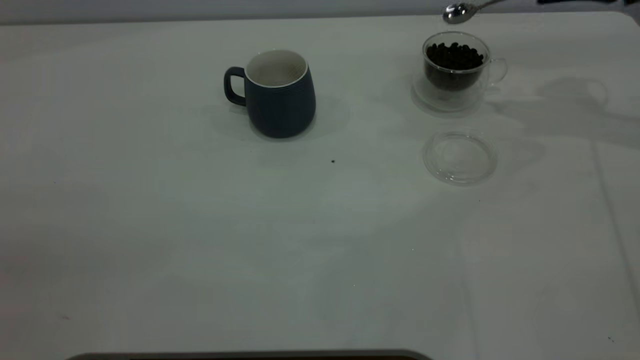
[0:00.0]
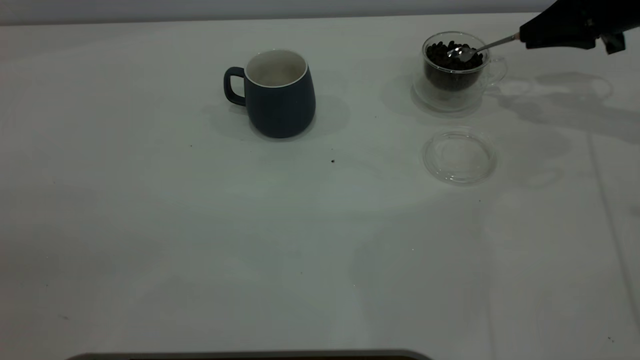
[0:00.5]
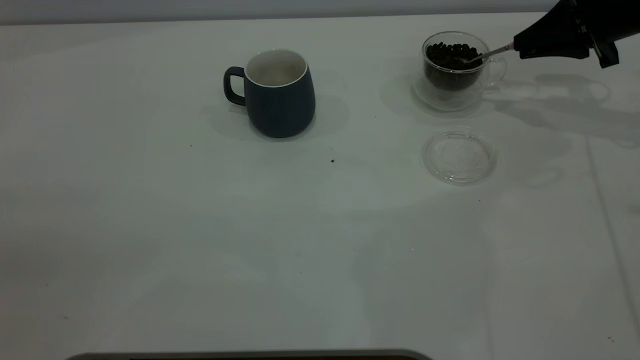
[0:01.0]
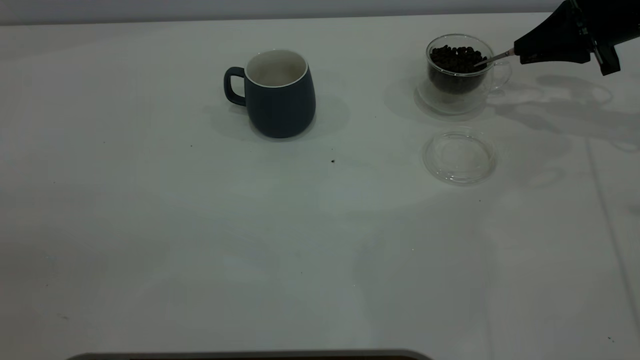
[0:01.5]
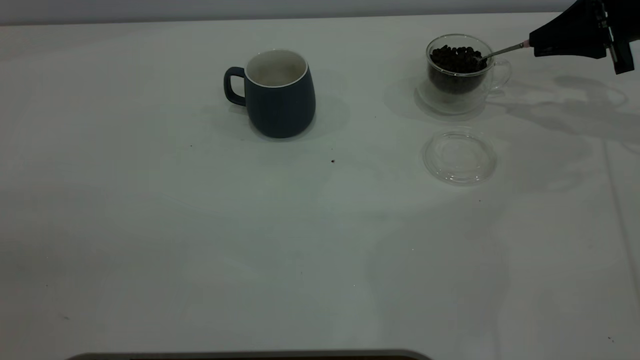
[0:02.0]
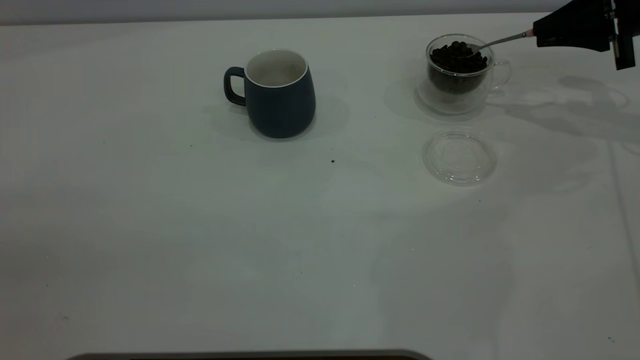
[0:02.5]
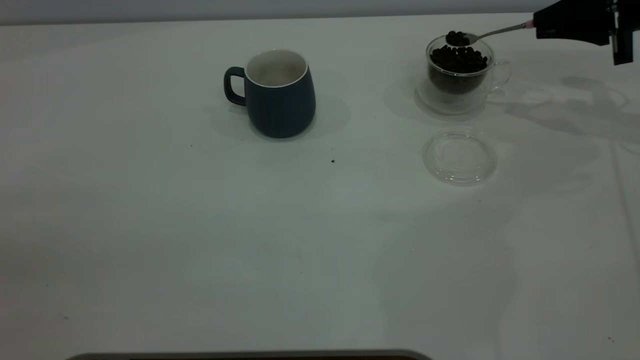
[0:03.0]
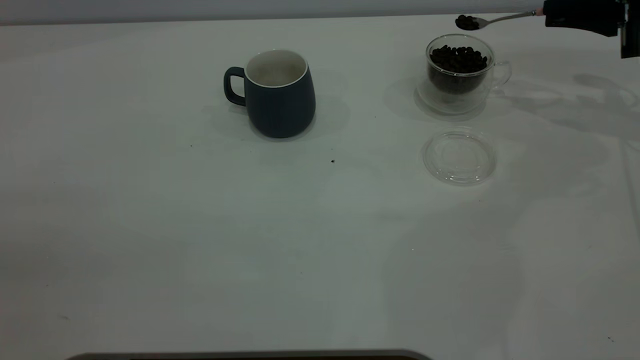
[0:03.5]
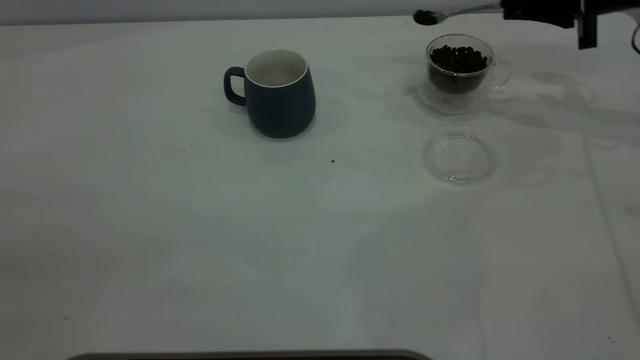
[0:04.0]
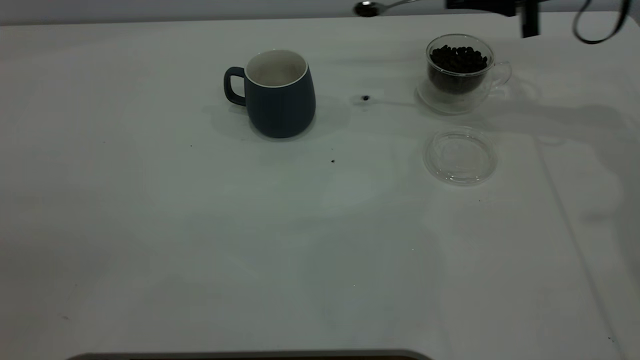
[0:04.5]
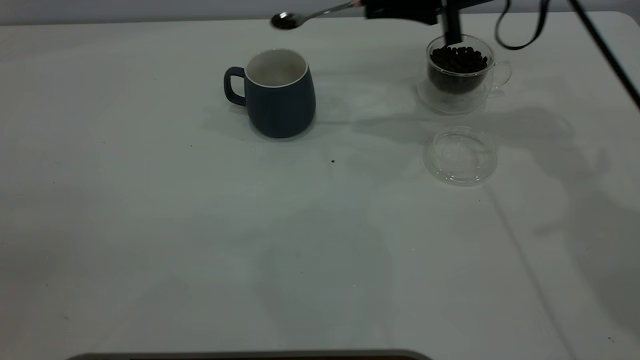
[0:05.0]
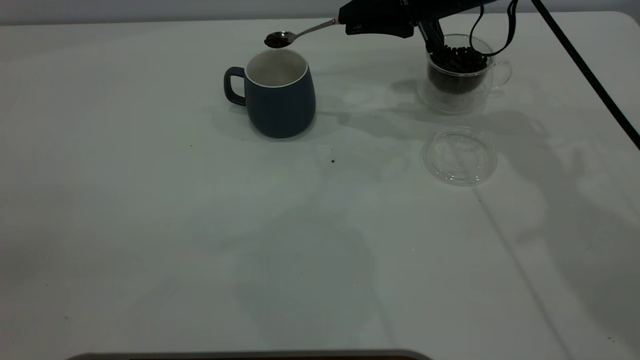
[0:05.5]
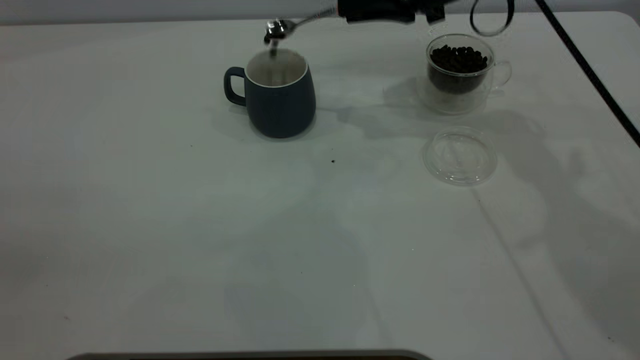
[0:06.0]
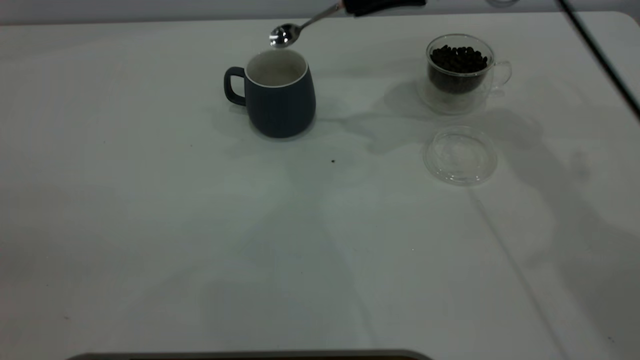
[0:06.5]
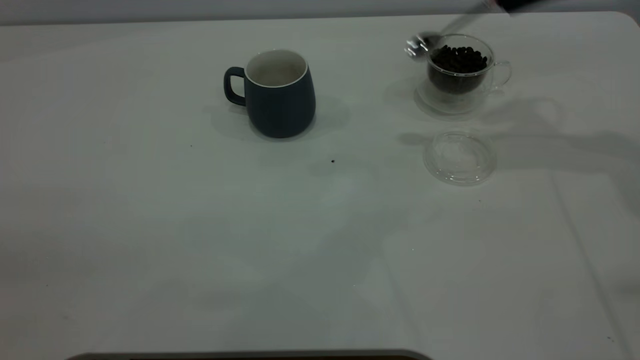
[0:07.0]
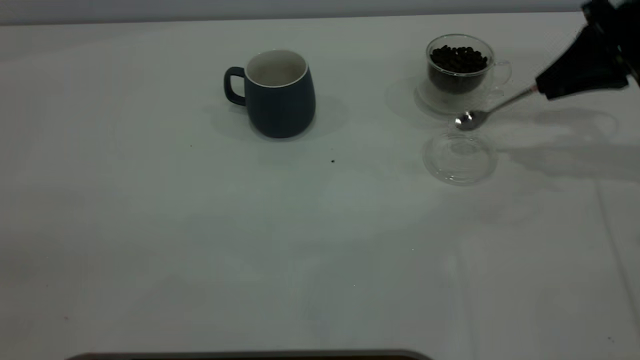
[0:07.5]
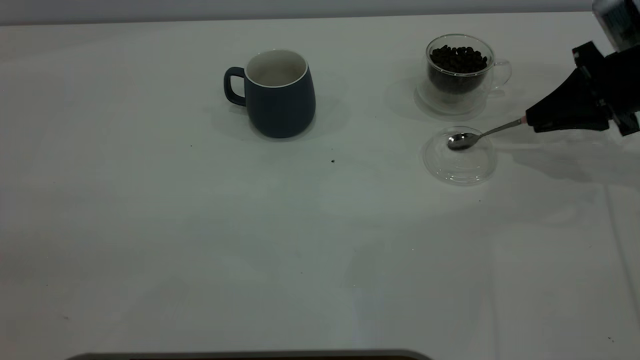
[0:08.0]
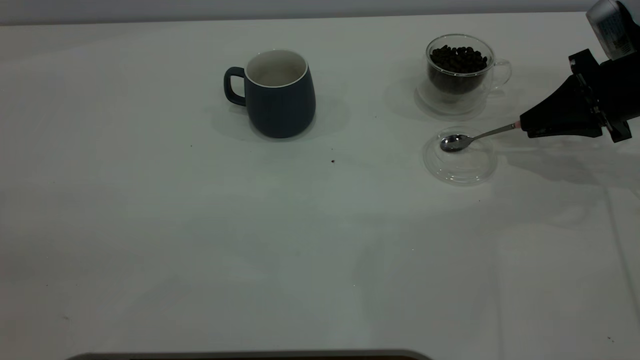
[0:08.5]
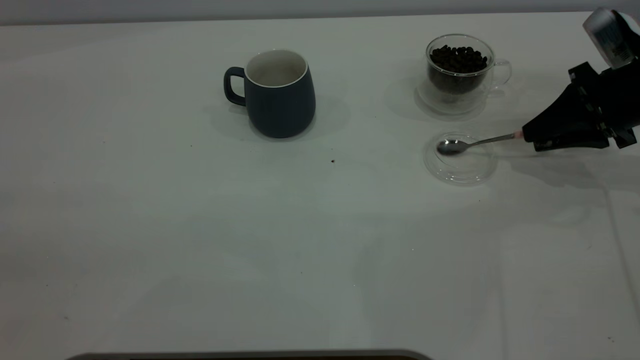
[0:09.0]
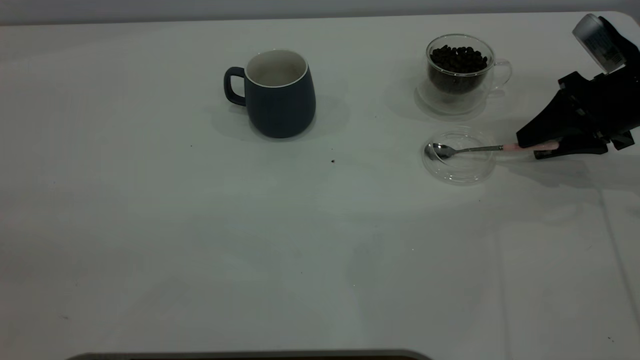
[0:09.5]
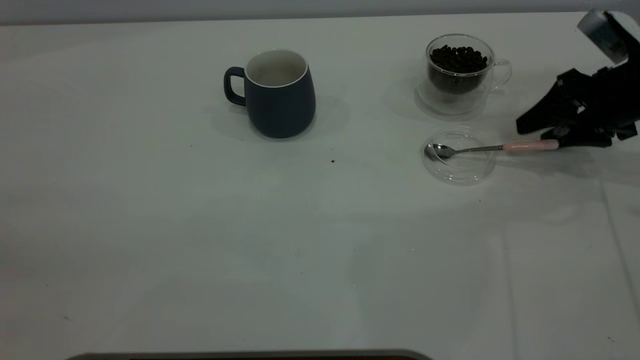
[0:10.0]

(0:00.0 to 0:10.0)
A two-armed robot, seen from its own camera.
Task of the whole recording: the left gripper place the grey cup in the center of the table, the right gripper take the pink spoon from the cup lid and scoop out the coffee beans from the coffee cup and put them into the grey cup, the right gripper put the spoon back into the cup lid.
Step, 0:00.0 - 0:06.0: Scoop a spoonful of beans into the cup.
Step, 0:06.5 - 0:10.0: Place the spoon back in its original place.
0:00.0 - 0:02.0: The right gripper shifts by roughly 5 cm.
0:02.0 - 0:04.0: The grippers make only small movements.
0:04.0 - 0:06.0: The right gripper goes approximately 20 cm to the left.
0:06.0 - 0:08.0: The right gripper is displaced to the right and downward by about 20 cm.
0:08.0 - 0:10.0: The right gripper opens up.

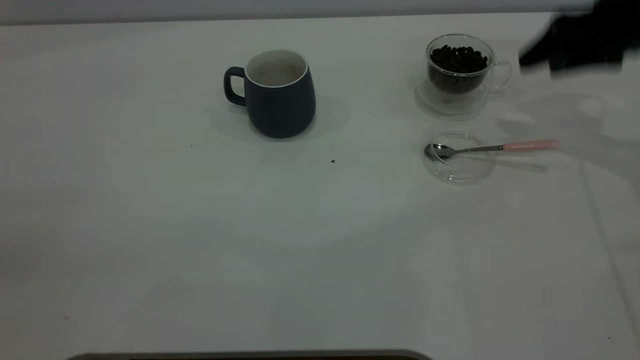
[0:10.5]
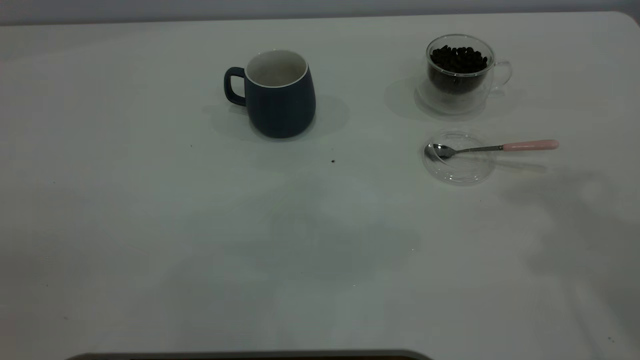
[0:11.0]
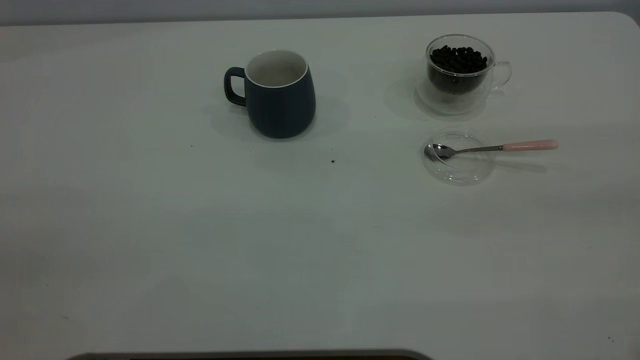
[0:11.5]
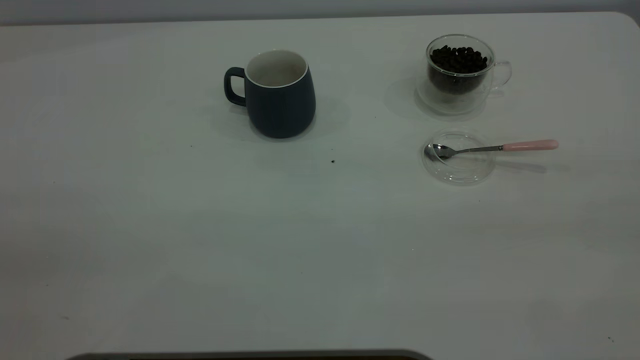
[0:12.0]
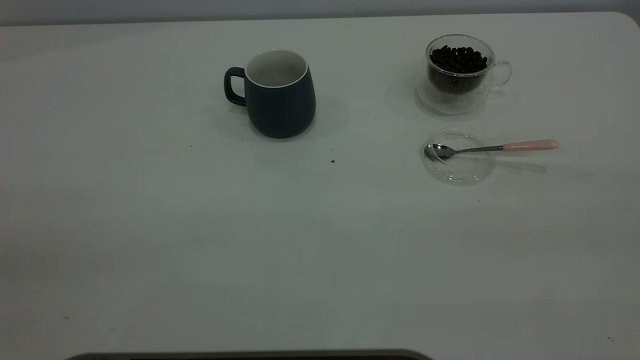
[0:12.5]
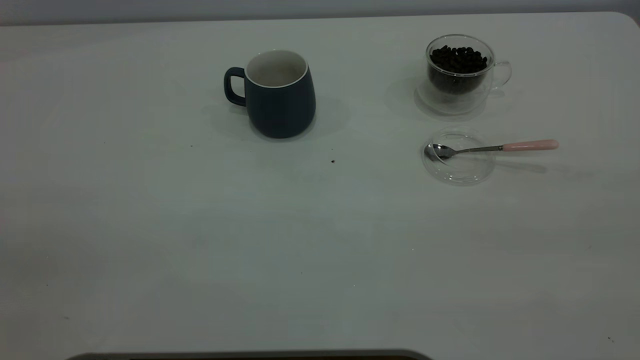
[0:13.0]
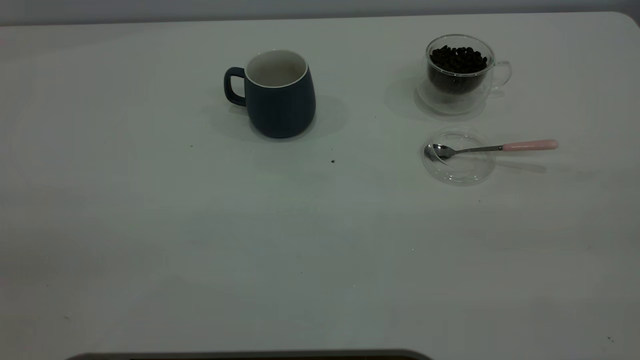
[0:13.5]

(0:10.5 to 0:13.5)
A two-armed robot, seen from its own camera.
Task of the whole recording: the left gripper place the grey cup in the center of the table, the right gripper take the pink spoon from the cup lid and scoop out the coffee beans from the coffee cup and put them into the grey cup, the right gripper put the spoon back into the cup lid.
0:10.5 - 0:12.0: The right gripper is displaced backward and upward by roughly 40 cm.
0:12.0 - 0:13.5: Both grippers stay about where they are.

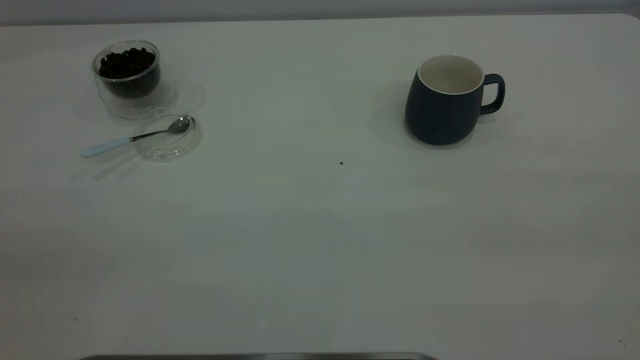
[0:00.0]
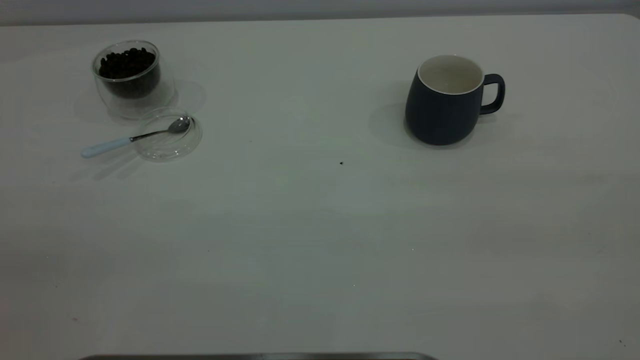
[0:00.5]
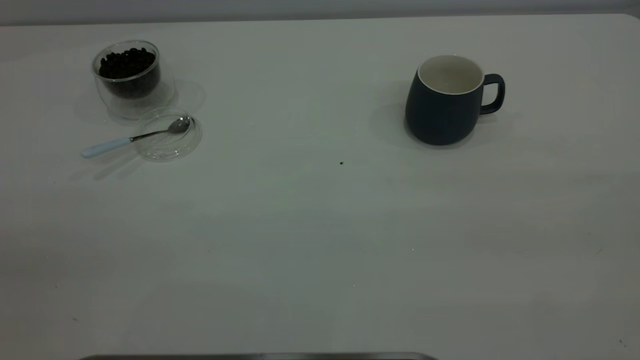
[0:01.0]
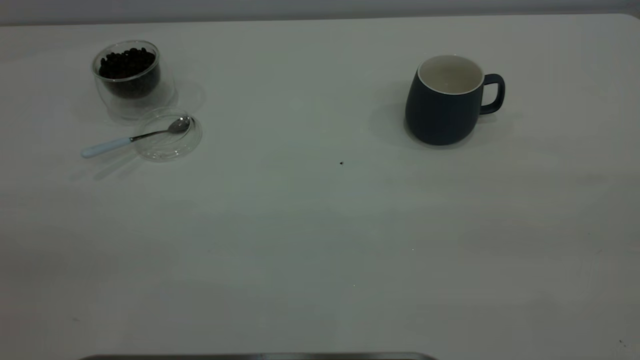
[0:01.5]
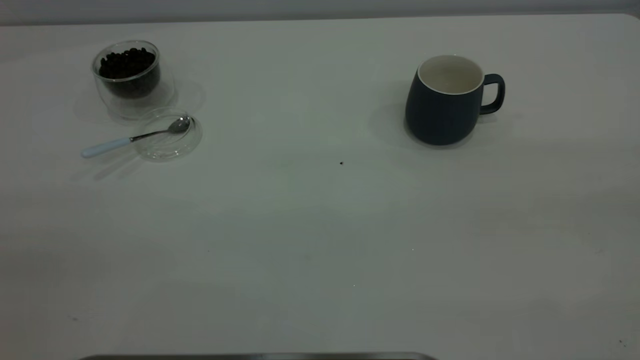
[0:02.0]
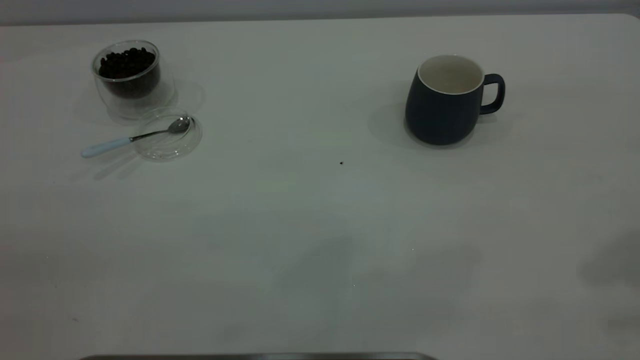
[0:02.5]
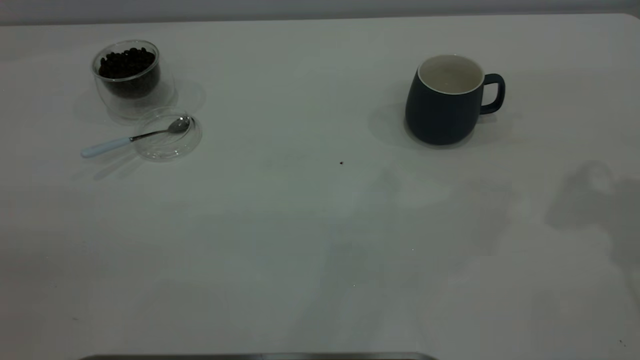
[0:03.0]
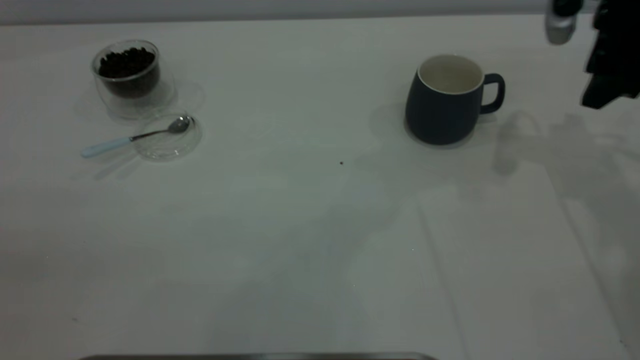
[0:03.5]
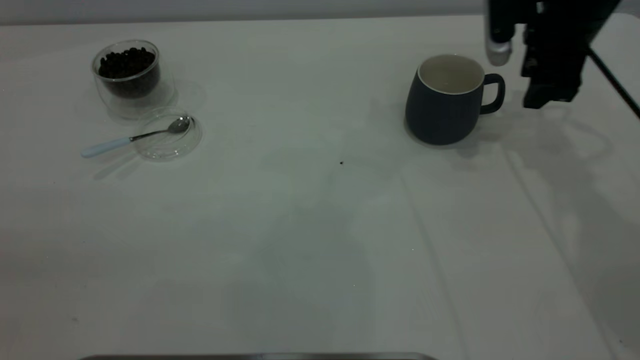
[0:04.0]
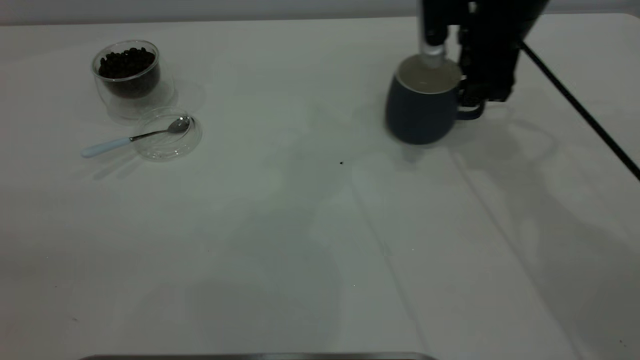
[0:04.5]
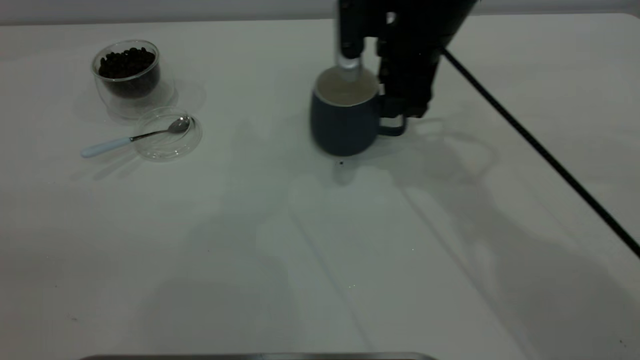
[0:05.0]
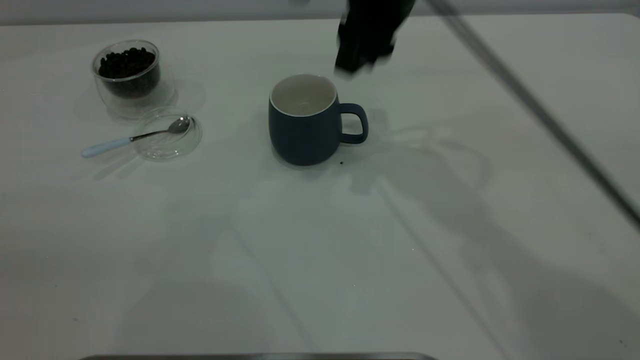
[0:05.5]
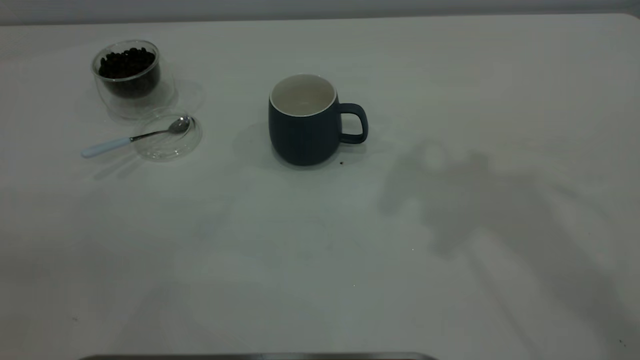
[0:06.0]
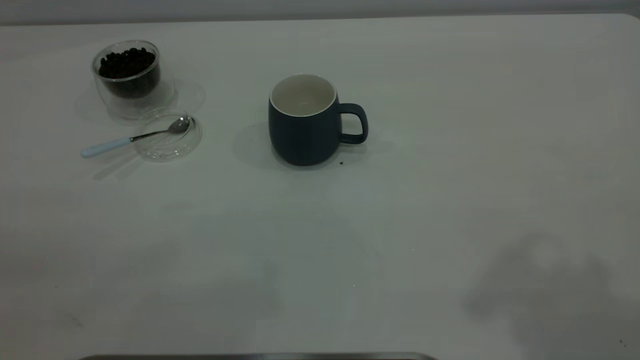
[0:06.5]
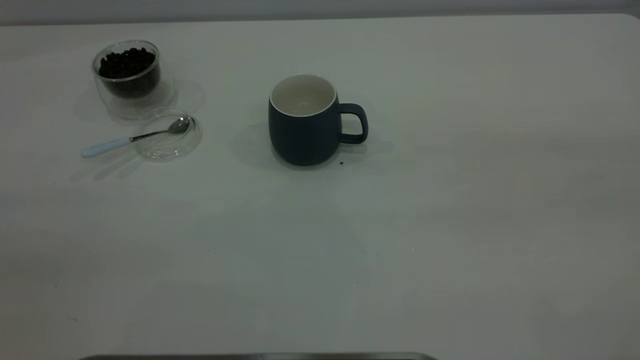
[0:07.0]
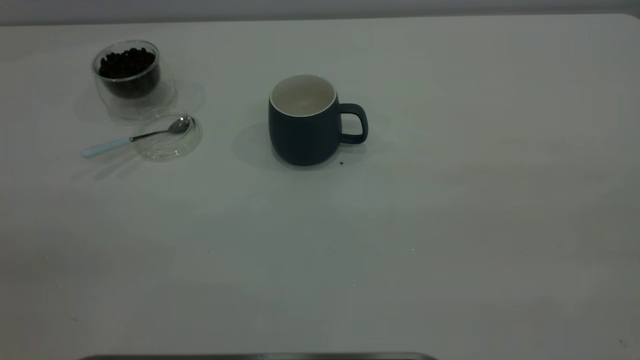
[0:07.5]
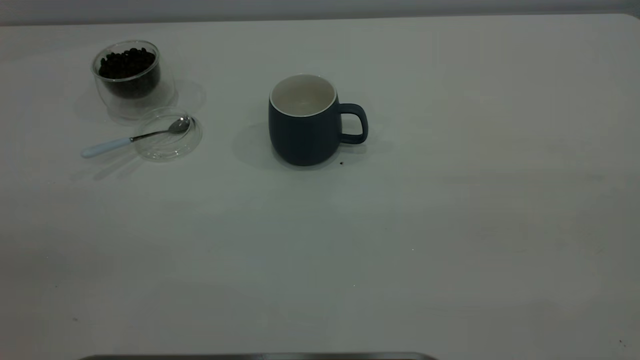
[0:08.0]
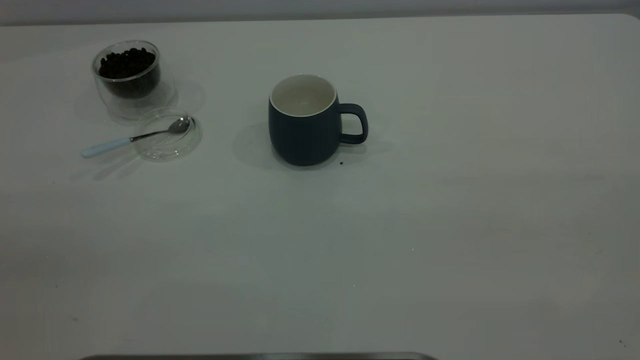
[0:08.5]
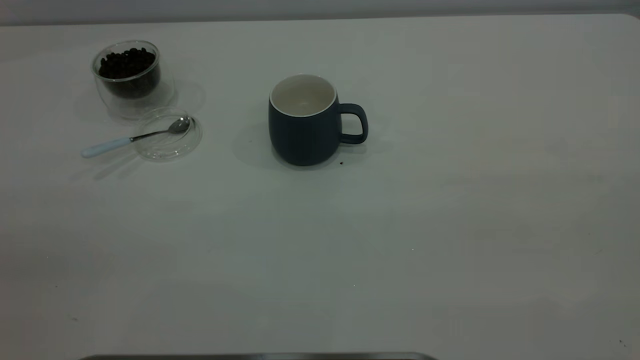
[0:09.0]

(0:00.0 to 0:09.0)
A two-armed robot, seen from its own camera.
Task of the whole recording: the right gripper place the grey cup in the center of the table, the left gripper take the blue spoon from the cup lid and scoop out the coffee beans from the coffee cup and put them into the grey cup, the left gripper put the spoon back into the cup lid.
Step, 0:00.0 - 0:05.5: Move the cup to the center of view.
0:02.0 - 0:04.5: The right gripper travels forward and downward by approximately 50 cm.
0:04.5 - 0:07.0: The right gripper heads backward and upward, covering approximately 40 cm.
